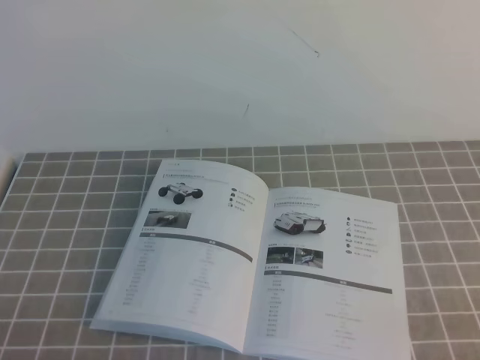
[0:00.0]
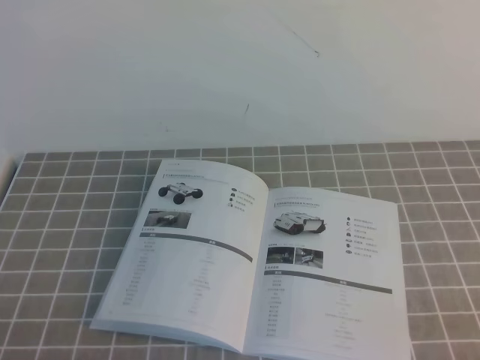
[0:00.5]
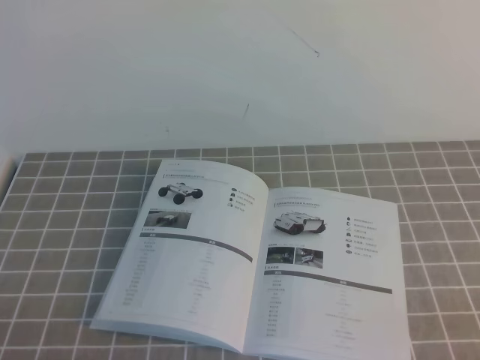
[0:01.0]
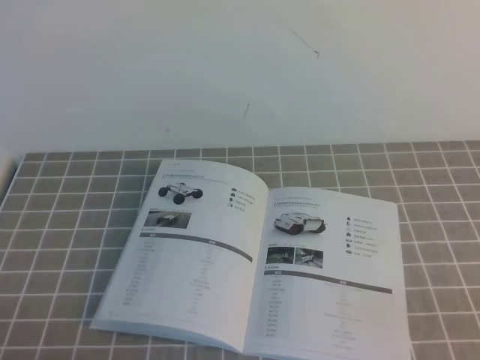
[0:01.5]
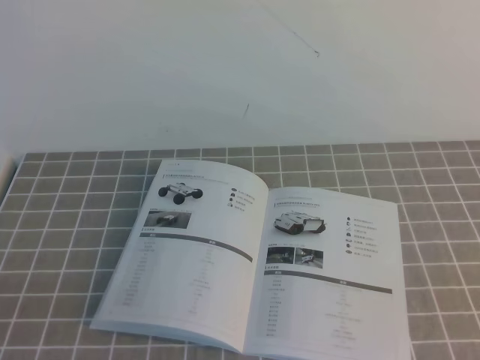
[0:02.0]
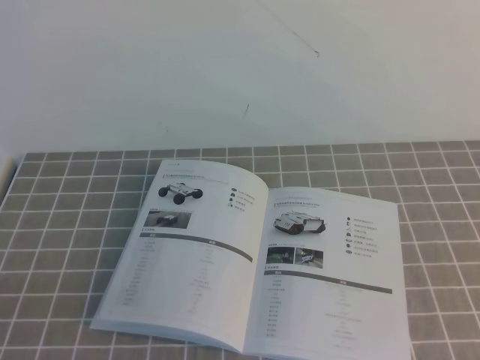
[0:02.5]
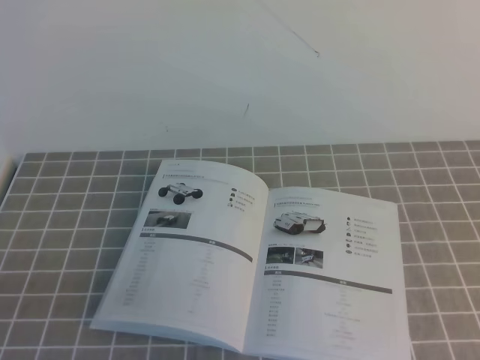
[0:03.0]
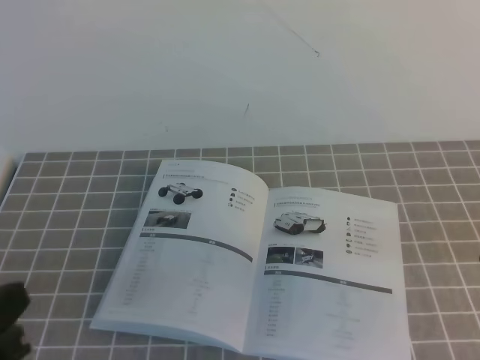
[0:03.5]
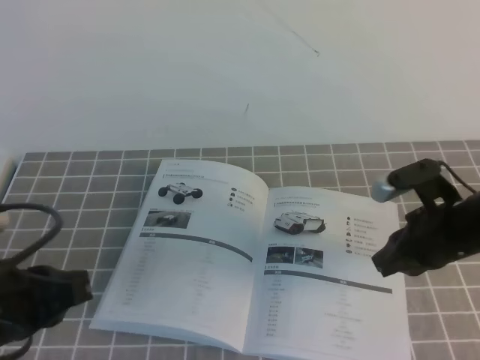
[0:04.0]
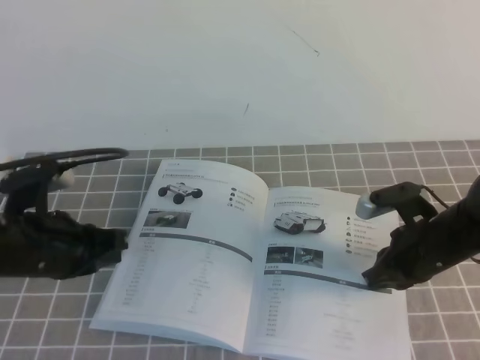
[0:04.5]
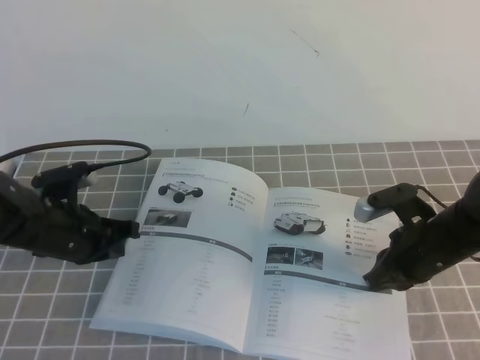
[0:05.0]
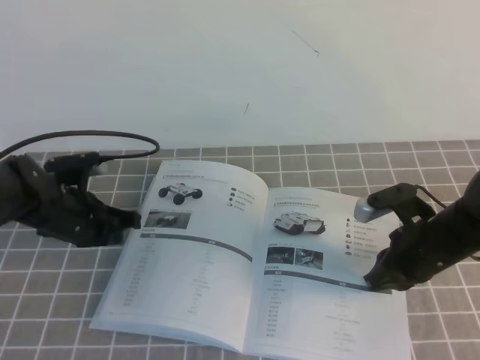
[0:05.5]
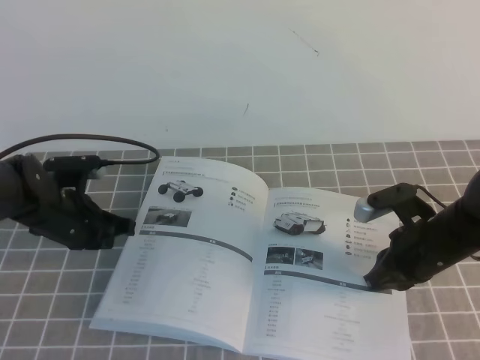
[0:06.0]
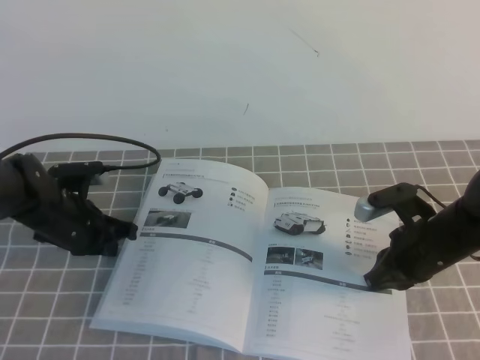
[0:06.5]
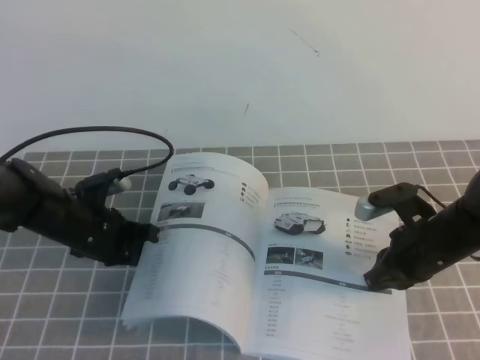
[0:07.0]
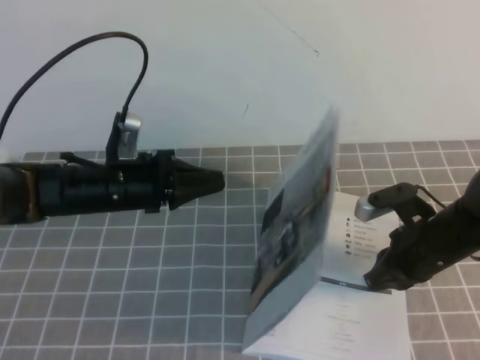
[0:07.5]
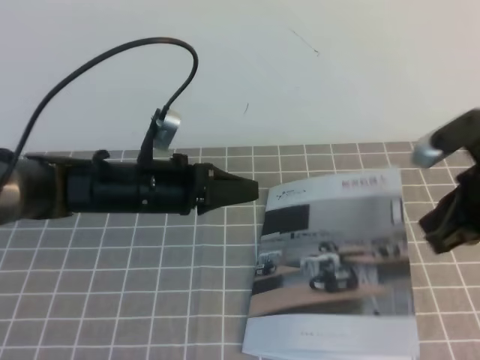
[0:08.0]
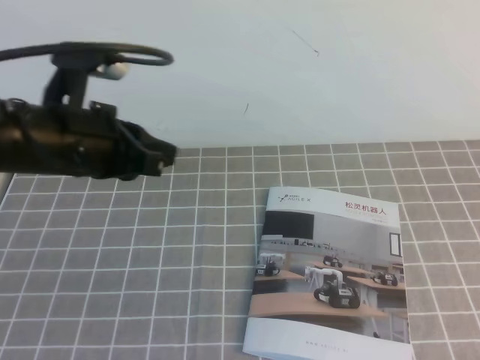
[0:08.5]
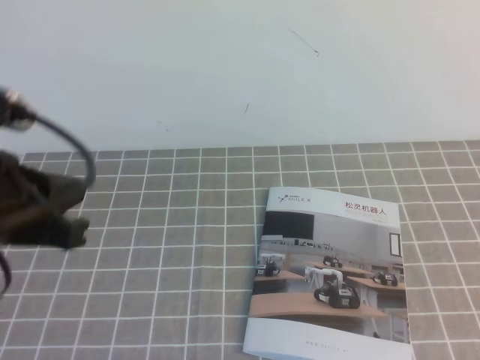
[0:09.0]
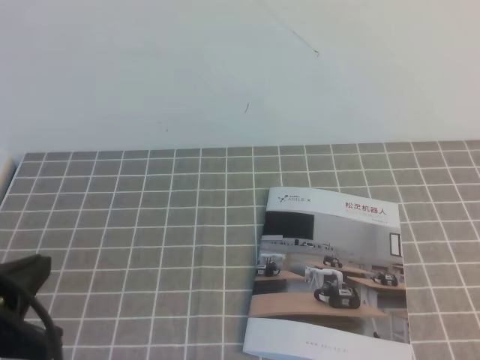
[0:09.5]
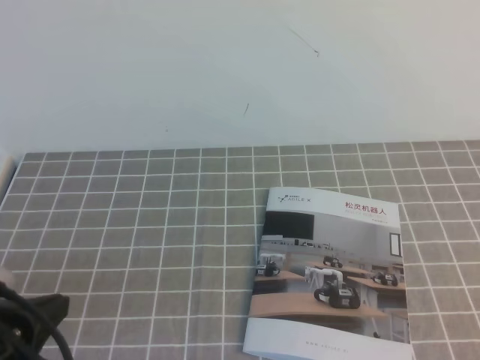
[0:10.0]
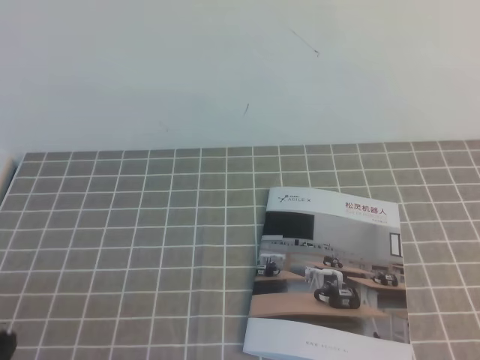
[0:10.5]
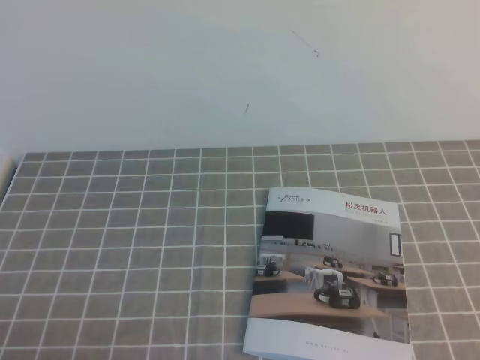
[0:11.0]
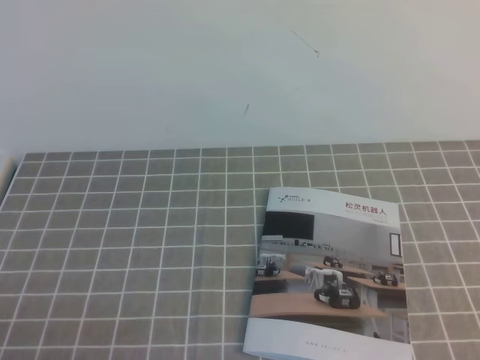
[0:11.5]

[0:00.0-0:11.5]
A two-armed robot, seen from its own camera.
Task of the whole recording: on the grey tablecloth, hold the book with one hand and close it with the other.
0:02.0 to 0:04.0: The right gripper moves forward, approximately 25 cm. Meanwhile the left gripper shifts about 10 cm forward.
0:04.0 to 0:06.0: The left gripper goes about 25 cm forward and downward. Meanwhile the right gripper moves downward, some 5 cm.
0:06.0 to 0:07.5: The left gripper shifts some 10 cm to the right.
0:07.5 to 0:09.5: Both grippers move backward and upward, about 30 cm.
0:09.5 to 0:11.5: The left gripper goes approximately 15 cm downward and backward.
